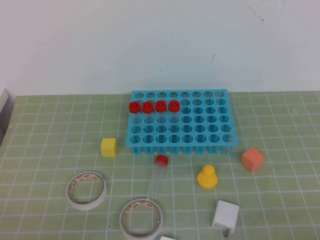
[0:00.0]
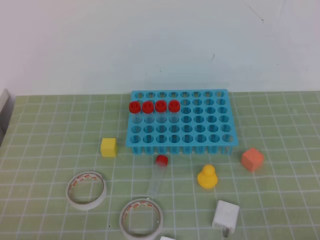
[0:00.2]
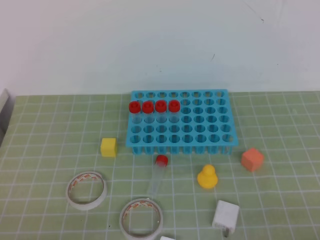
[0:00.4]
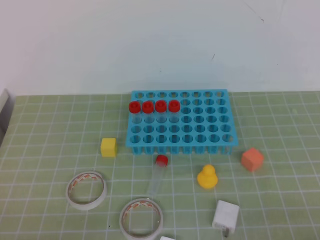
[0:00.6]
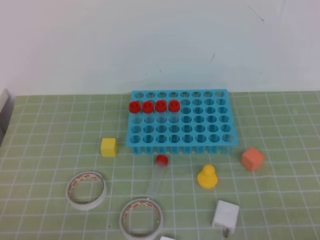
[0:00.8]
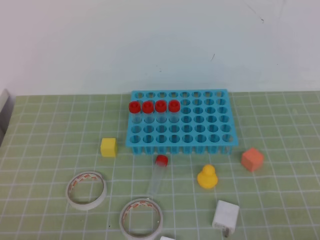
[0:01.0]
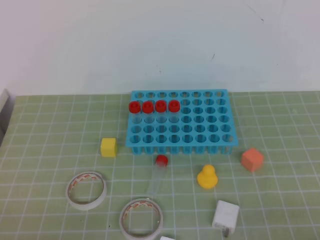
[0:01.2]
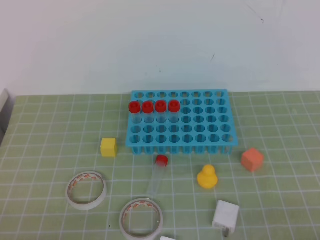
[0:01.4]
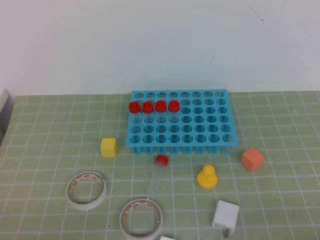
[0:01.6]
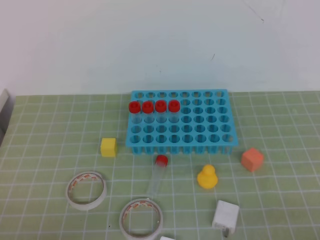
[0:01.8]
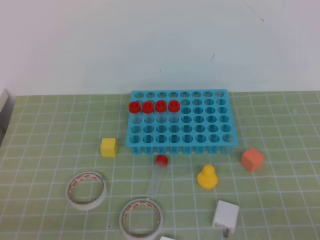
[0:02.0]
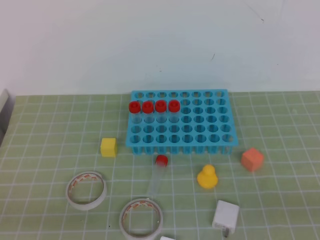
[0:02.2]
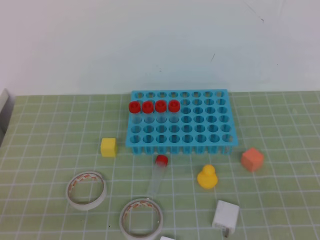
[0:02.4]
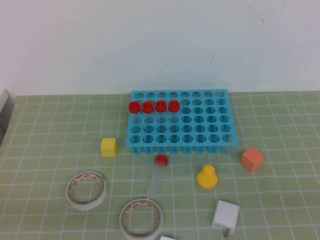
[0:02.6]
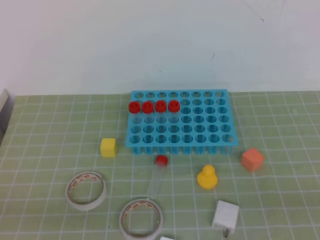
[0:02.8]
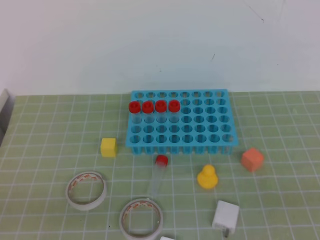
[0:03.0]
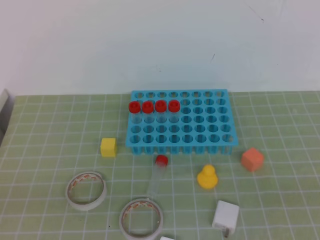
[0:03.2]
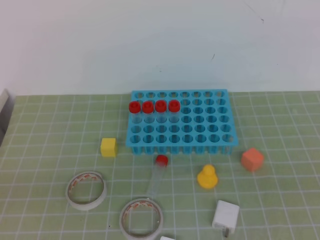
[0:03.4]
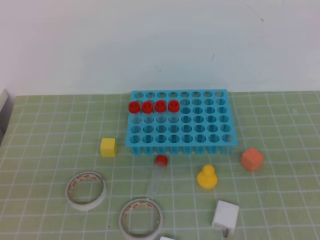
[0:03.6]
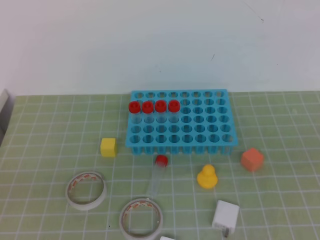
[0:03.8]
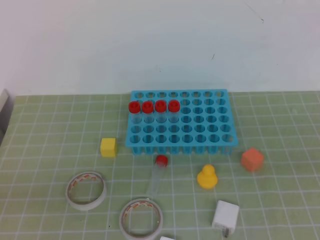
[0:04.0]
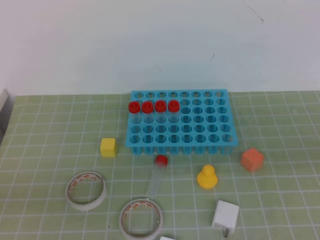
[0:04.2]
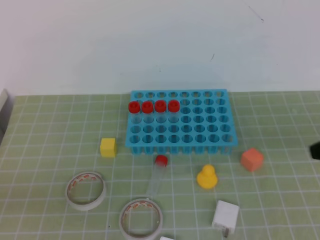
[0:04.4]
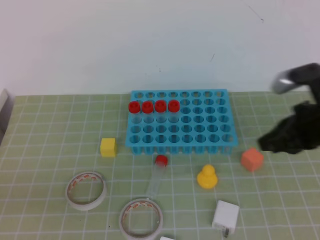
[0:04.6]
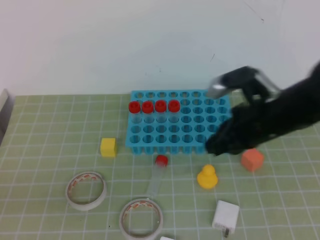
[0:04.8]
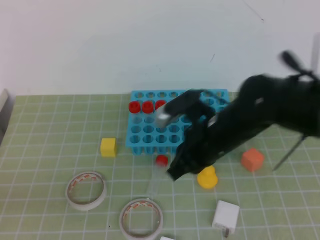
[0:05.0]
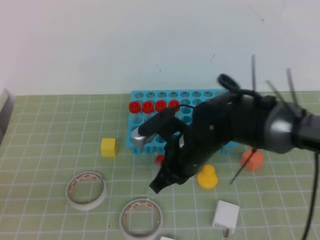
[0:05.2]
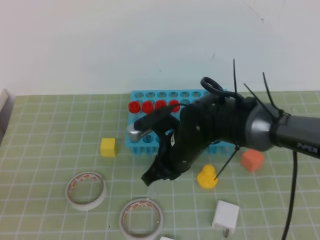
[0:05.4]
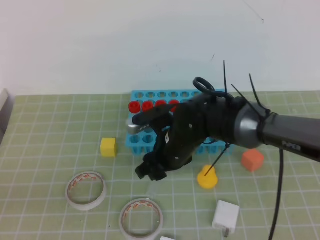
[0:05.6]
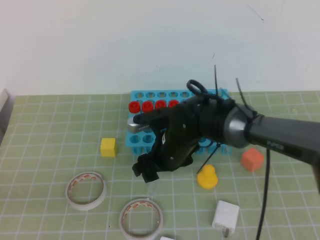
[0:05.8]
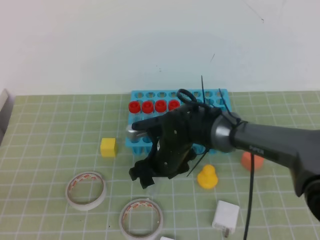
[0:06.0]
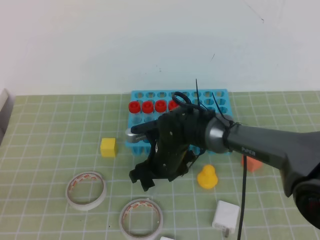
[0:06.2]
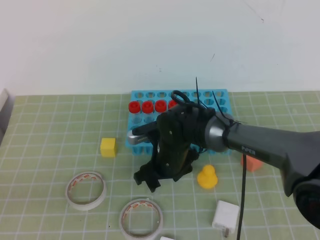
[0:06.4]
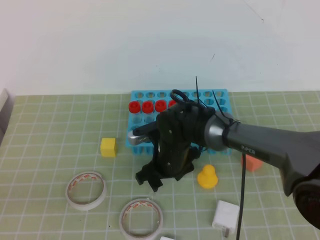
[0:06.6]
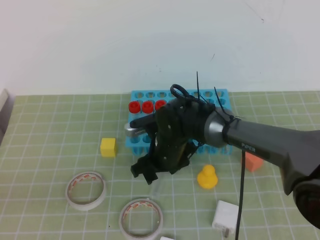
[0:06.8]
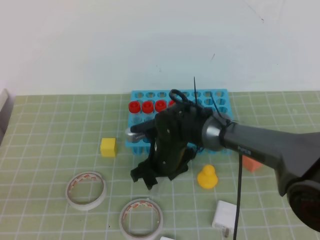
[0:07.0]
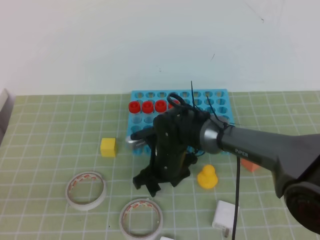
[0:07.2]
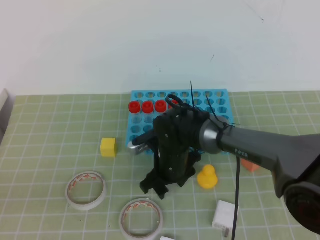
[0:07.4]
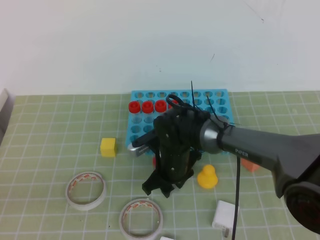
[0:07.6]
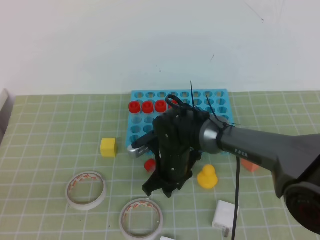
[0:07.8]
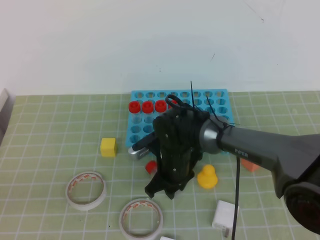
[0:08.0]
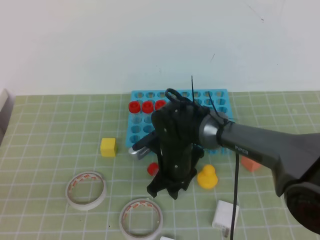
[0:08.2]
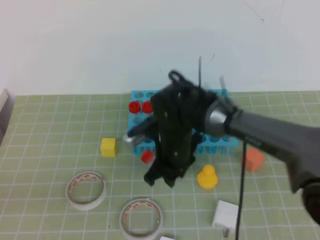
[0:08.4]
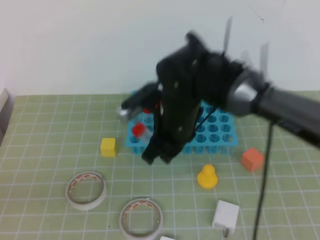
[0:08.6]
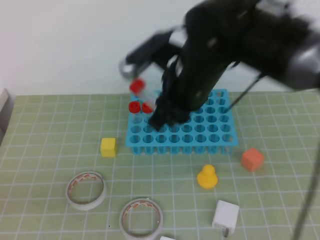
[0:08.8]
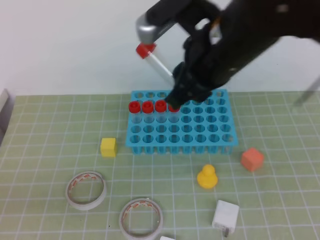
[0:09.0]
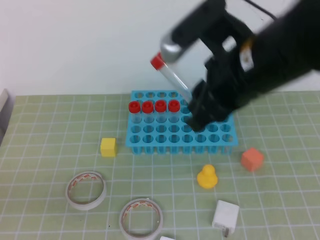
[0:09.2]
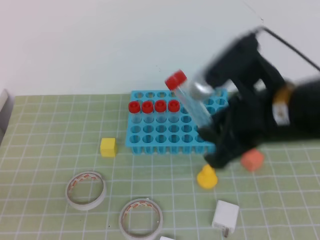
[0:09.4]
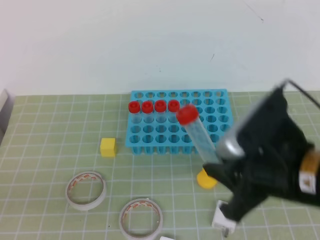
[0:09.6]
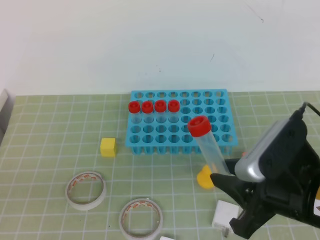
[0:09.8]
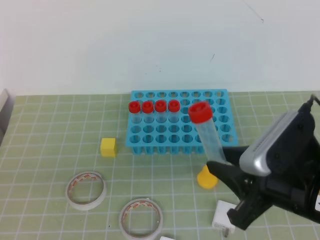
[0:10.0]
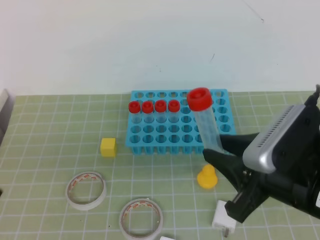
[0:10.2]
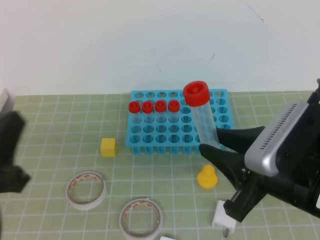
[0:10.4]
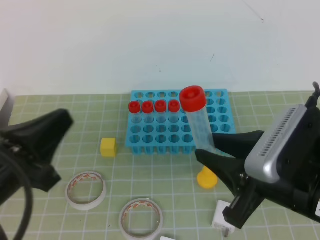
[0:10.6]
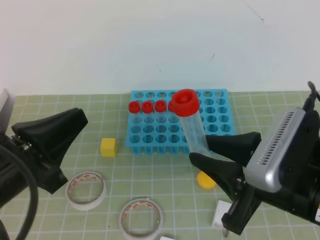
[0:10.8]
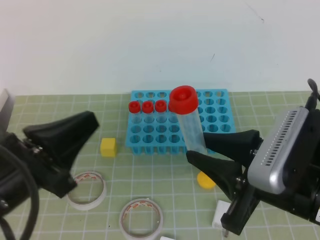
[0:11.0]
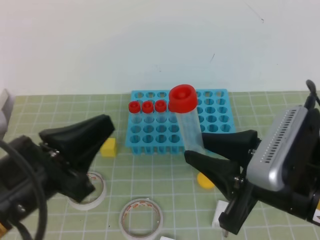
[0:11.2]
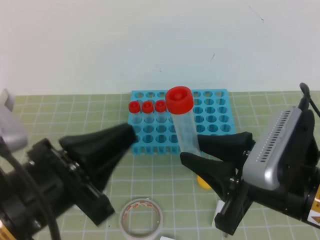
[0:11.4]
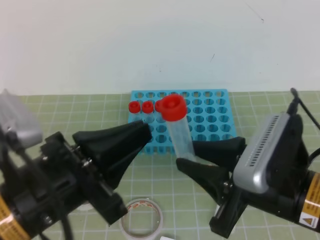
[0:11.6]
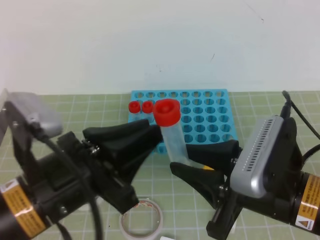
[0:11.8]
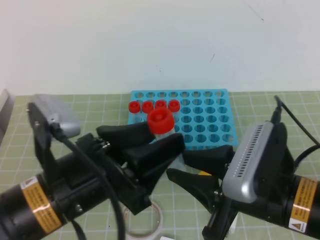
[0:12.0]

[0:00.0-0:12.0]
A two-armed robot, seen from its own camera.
0:00.0 to 0:01.6: The two grippers keep their place.
0:04.4 to 0:06.0: The right gripper travels to the left, downward and forward by some 35 cm, and opens.
0:06.0 to 0:07.6: The grippers make only small movements.
0:07.6 to 0:09.0: The right gripper moves upward, approximately 25 cm.
0:09.0 to 0:10.4: The left gripper shifts some 5 cm forward; the right gripper shifts roughly 15 cm backward, downward and to the right.
0:10.4 to 0:12.0: The left gripper travels to the right by about 10 cm, and opens.

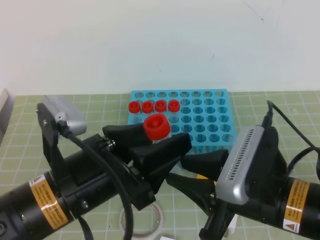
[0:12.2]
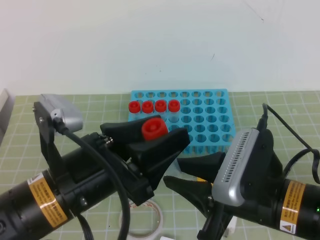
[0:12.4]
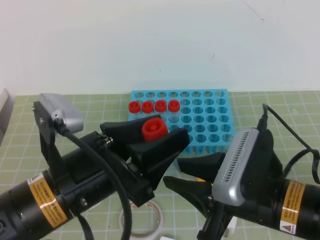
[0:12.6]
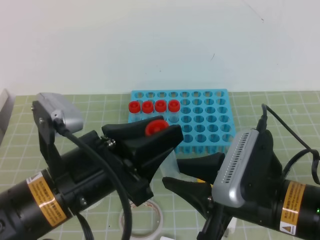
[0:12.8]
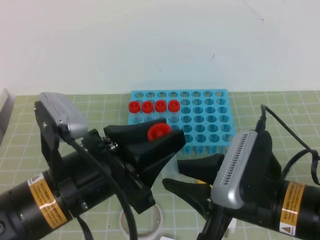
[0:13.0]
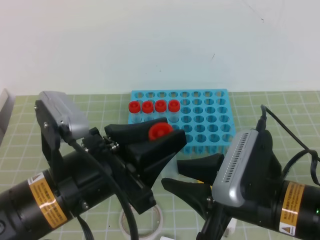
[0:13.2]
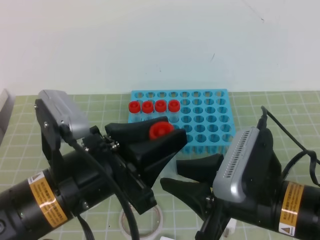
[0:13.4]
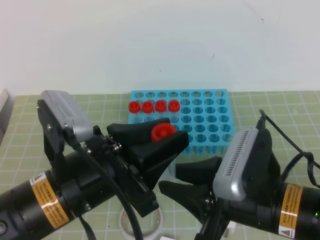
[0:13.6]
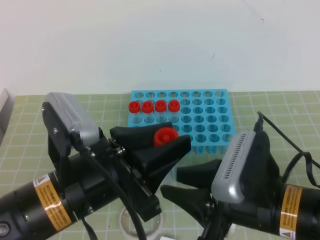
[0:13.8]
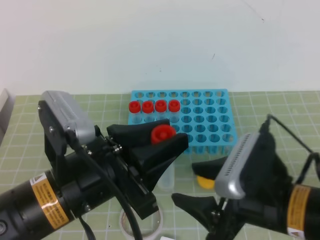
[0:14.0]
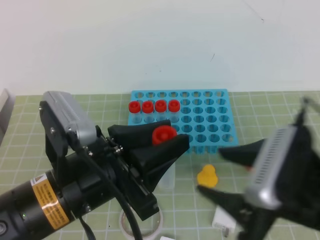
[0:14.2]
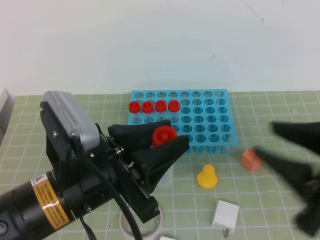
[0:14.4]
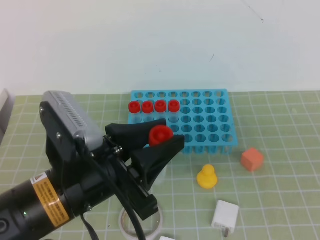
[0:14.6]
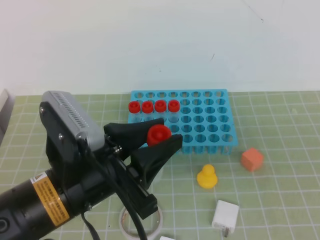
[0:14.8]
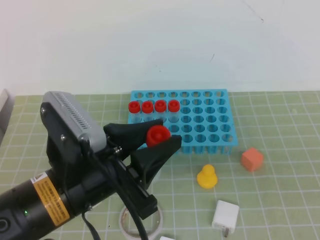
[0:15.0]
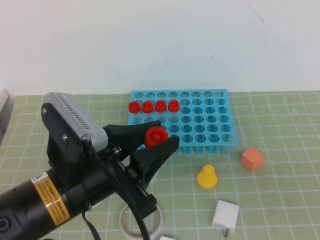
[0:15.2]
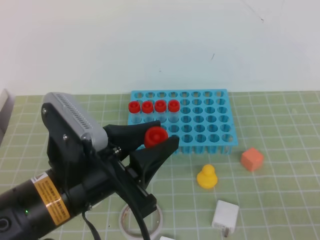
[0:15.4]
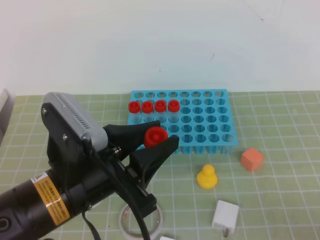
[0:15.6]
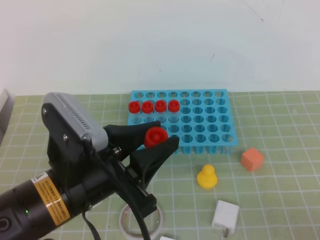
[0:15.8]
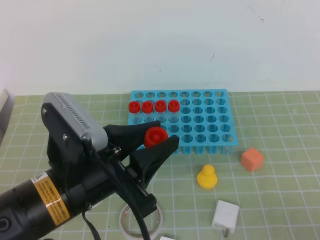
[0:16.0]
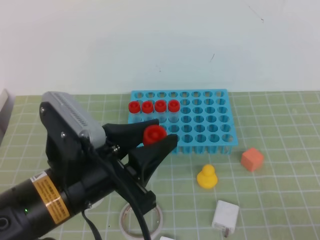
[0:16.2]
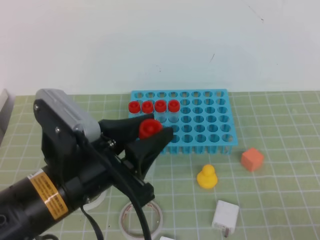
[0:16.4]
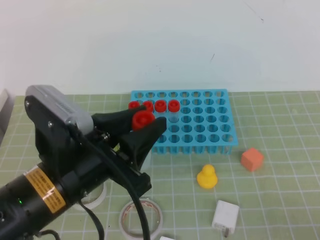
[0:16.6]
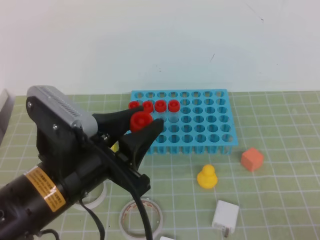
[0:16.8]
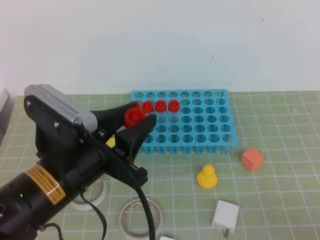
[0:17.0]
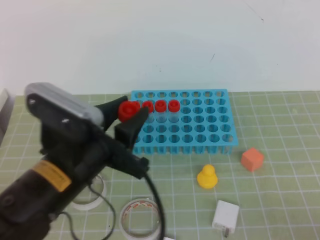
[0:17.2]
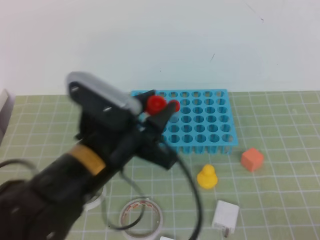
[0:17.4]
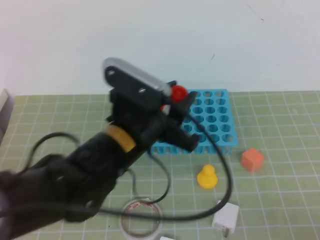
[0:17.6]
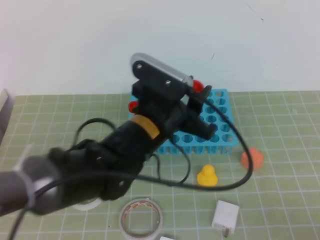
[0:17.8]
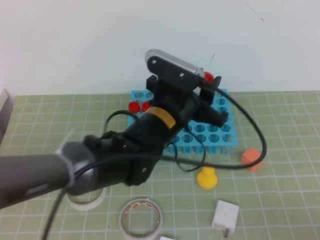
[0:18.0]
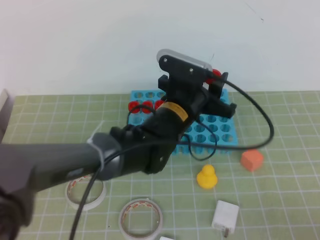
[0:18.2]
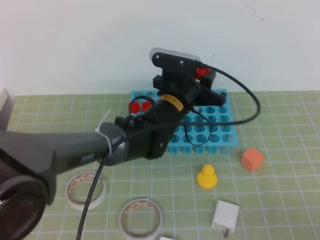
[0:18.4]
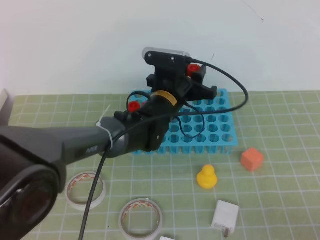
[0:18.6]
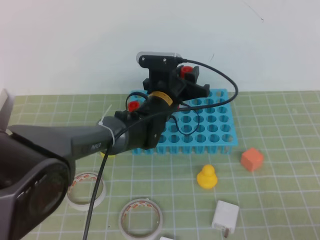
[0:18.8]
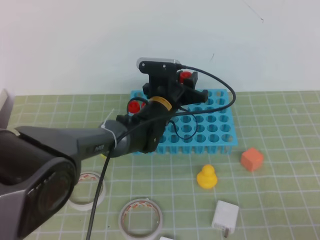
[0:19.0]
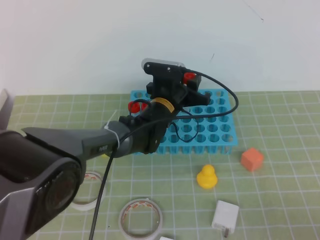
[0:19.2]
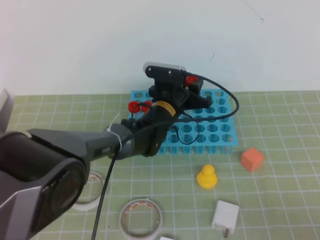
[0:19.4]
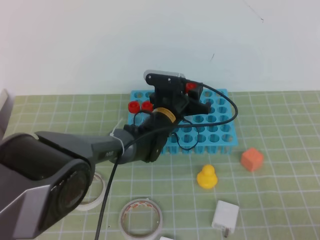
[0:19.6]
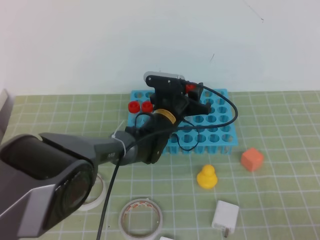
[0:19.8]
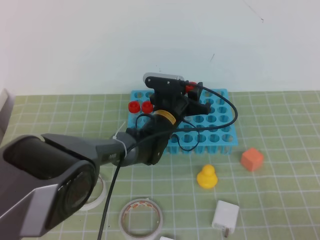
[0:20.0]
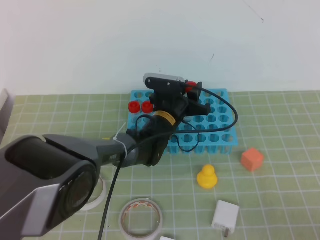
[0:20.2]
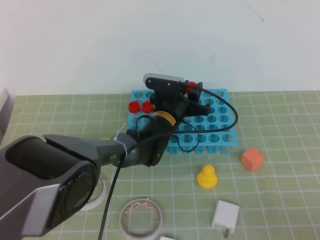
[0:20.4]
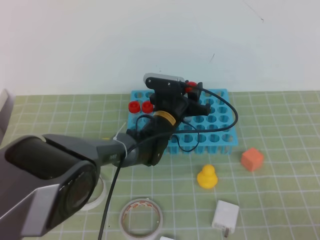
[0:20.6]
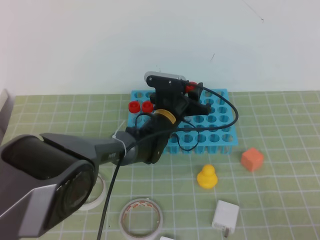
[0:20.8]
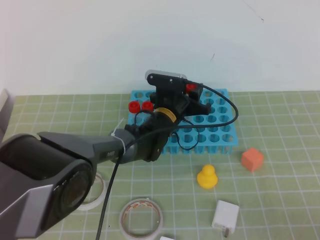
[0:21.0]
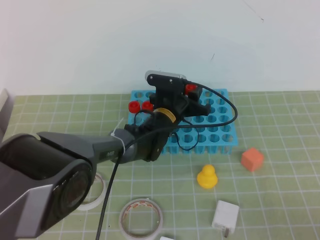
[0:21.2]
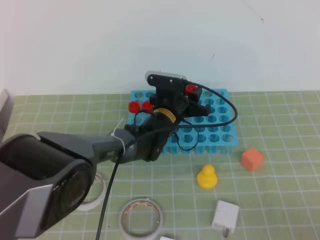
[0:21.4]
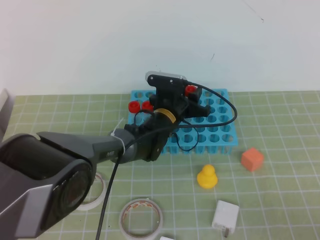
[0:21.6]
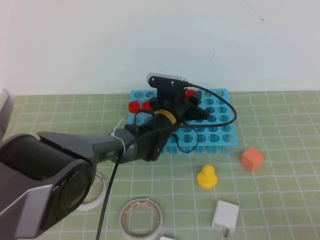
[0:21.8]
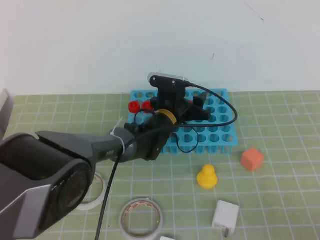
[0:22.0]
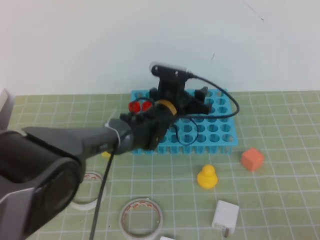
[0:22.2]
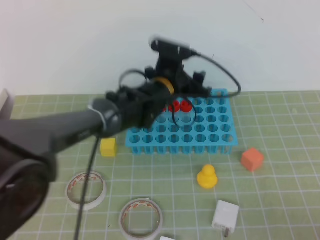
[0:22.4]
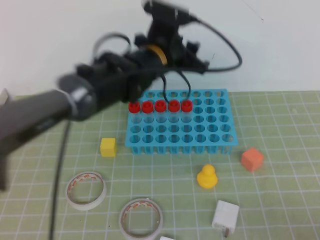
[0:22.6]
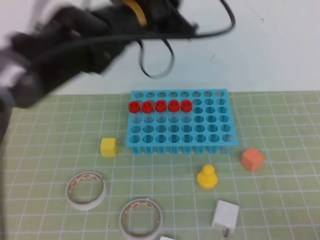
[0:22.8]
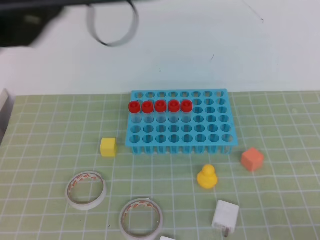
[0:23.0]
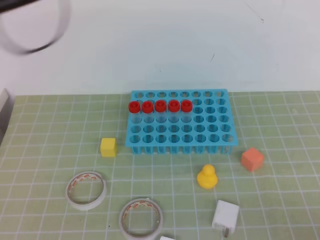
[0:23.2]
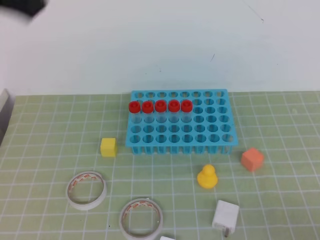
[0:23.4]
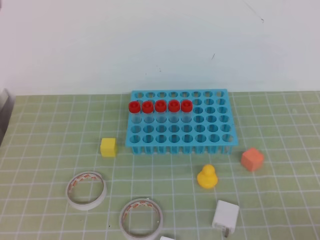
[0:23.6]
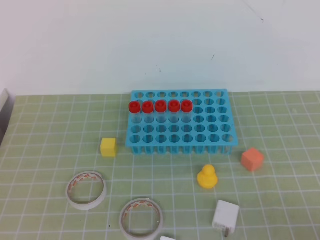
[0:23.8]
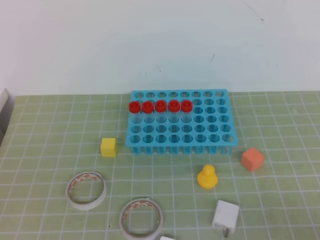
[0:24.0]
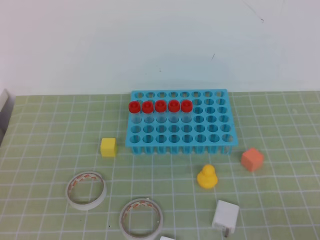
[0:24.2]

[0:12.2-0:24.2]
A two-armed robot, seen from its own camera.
0:12.2 to 0:13.8: The left gripper closes up.
0:13.8 to 0:15.2: The right gripper heads to the right and backward, covering about 20 cm, and closes.
0:16.6 to 0:18.2: The left gripper heads forward and to the right, covering roughly 20 cm.
0:18.2 to 0:19.8: The left gripper moves downward and forward, some 15 cm.
0:19.8 to 0:21.2: Both grippers stay put.
0:21.2 to 0:22.6: The left gripper goes roughly 15 cm upward.
0:22.6 to 0:24.2: The left gripper travels backward and to the left by approximately 40 cm, and closes its fingers.
